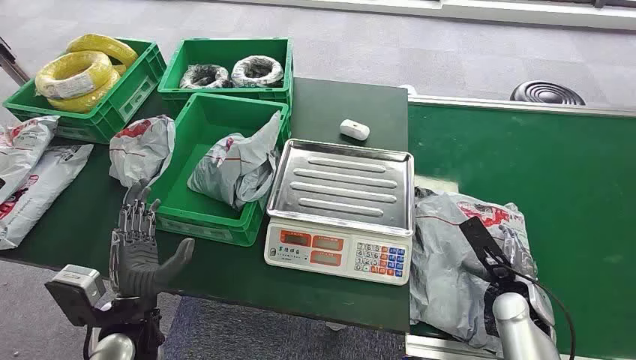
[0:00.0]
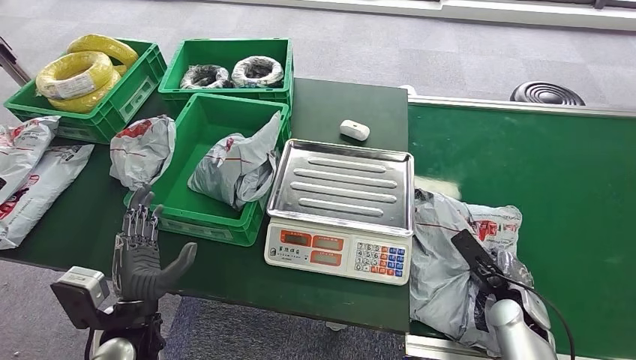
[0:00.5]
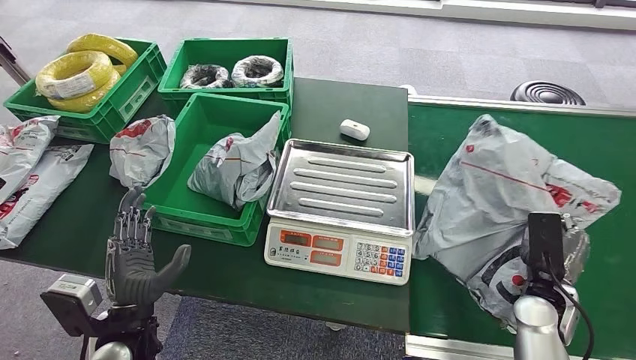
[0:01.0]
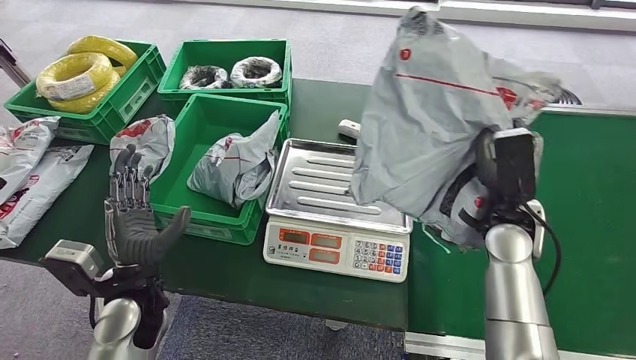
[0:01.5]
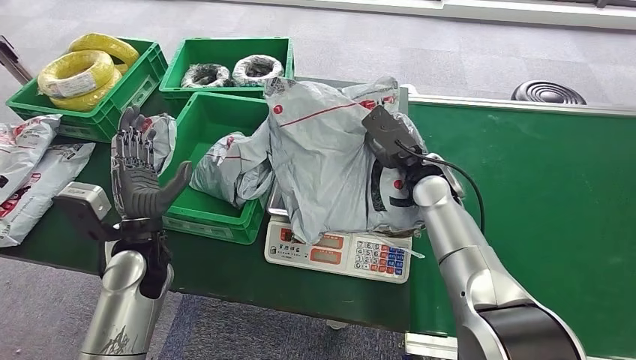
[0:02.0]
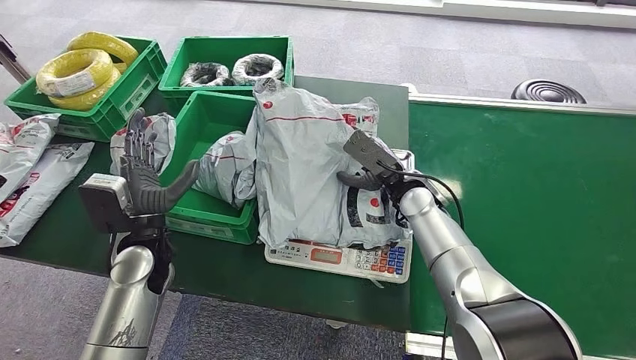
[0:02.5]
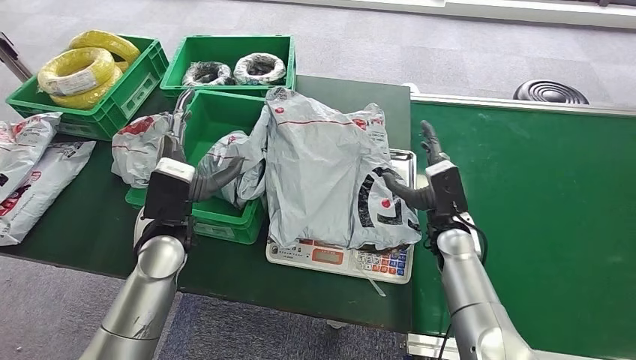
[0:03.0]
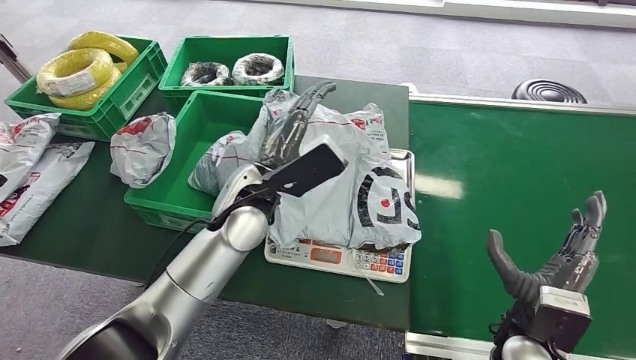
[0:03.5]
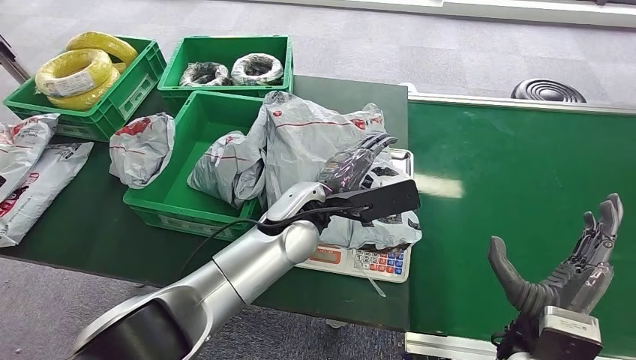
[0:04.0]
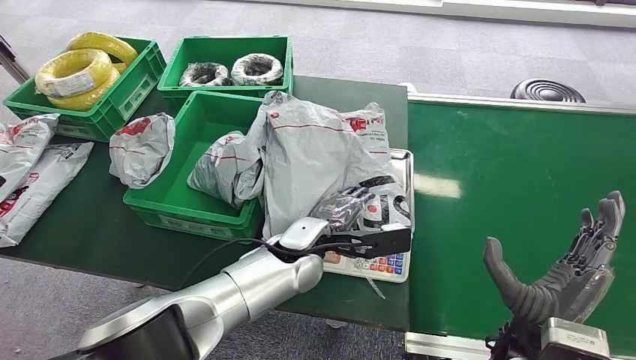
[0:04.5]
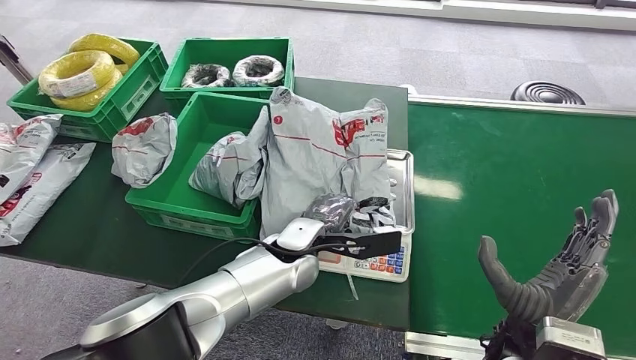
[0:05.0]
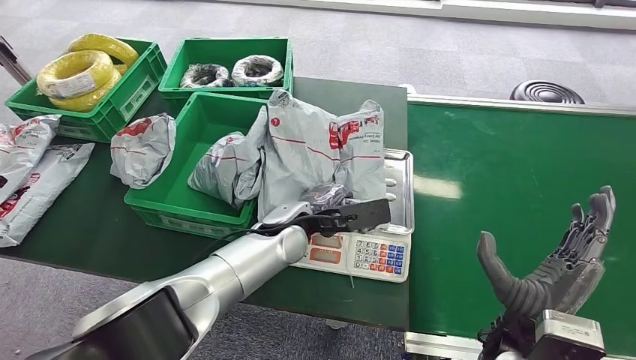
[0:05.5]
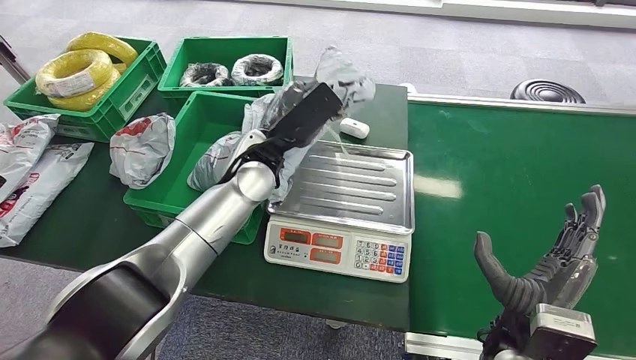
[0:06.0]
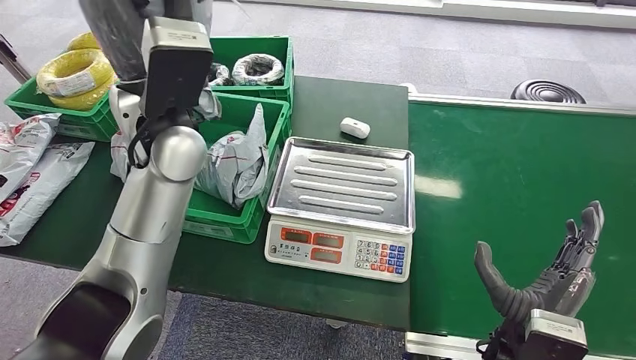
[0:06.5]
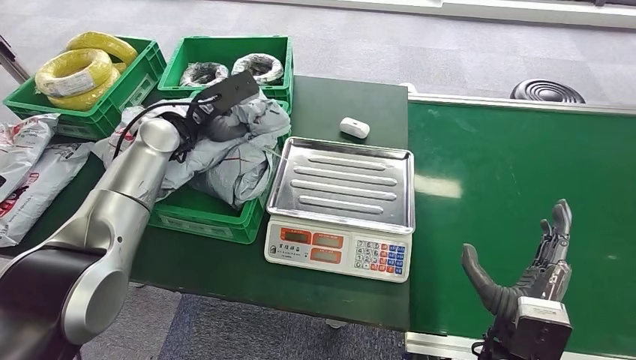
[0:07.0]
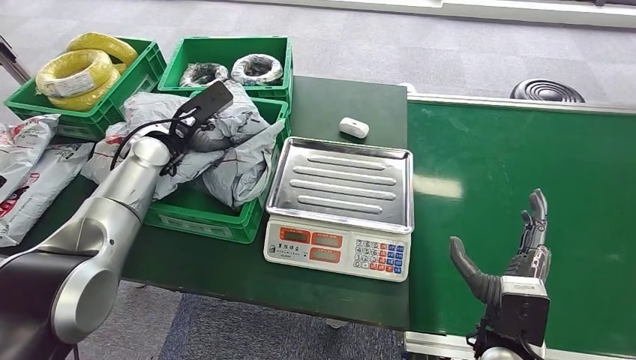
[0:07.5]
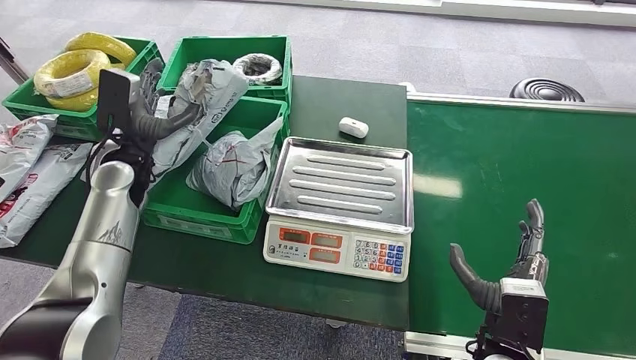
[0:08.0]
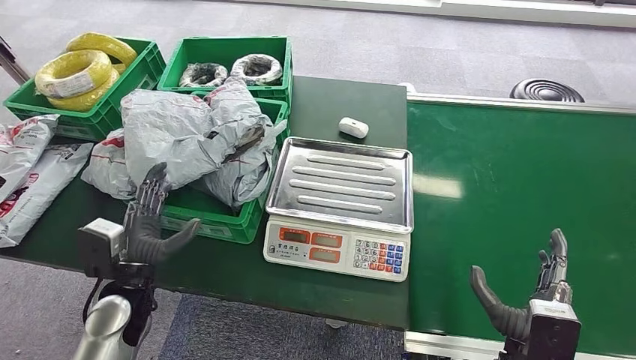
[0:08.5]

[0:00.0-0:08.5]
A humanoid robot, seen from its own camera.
Step, 0:00.0 to 0:01.0: Pick up the package from the conveyor belt.
Step, 0:01.5 to 0:03.0: Place the package onto the inbound machine.
Step, 0:03.5 to 0:06.0: Pick up the package from the inbound machine.
Step, 0:07.0 to 0:08.5: Place the package into the parcel locker.
